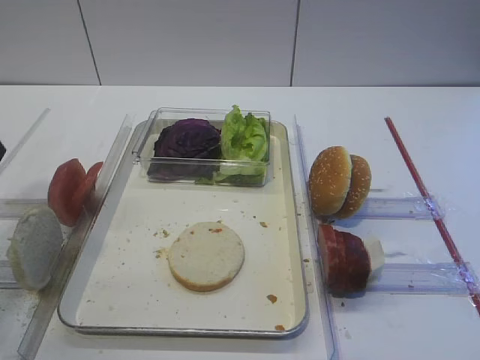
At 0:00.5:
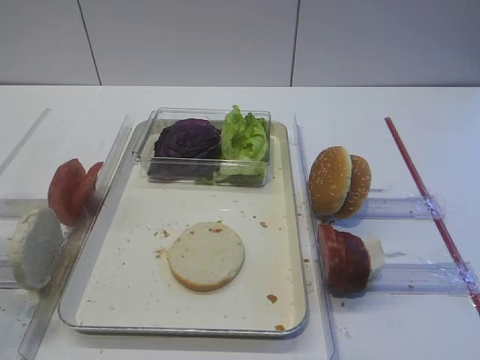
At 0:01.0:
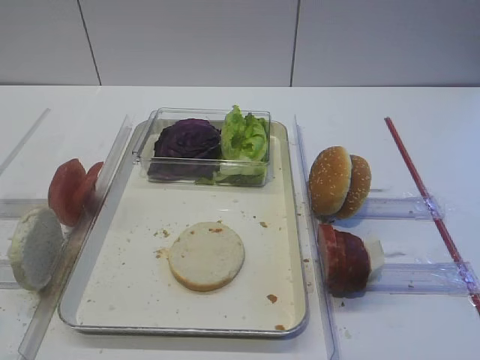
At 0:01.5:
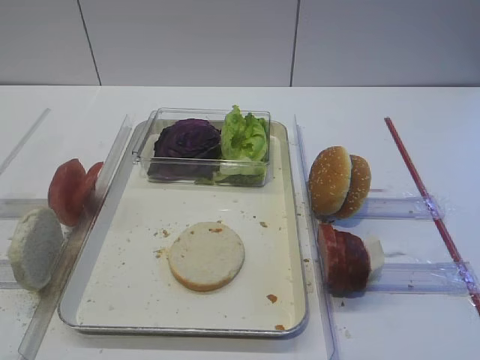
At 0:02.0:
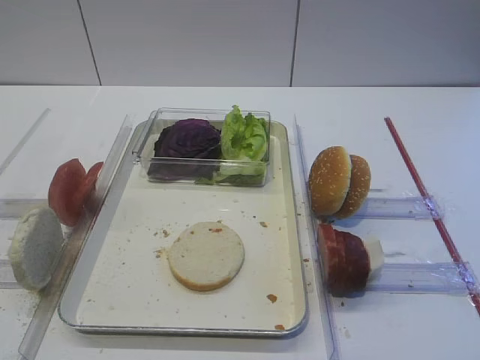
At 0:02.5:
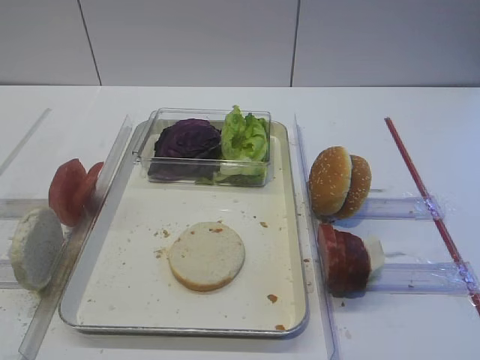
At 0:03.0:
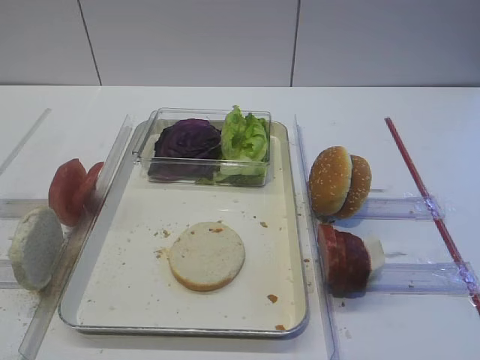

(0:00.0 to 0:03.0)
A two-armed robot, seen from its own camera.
0:00.0 - 0:01.5: The left gripper travels backward by approximately 20 cm.
0:01.5 - 0:03.0: Both grippers stay about where they are.

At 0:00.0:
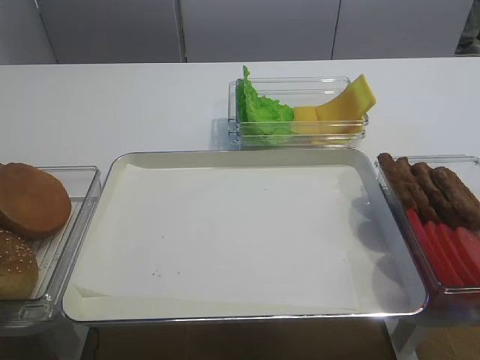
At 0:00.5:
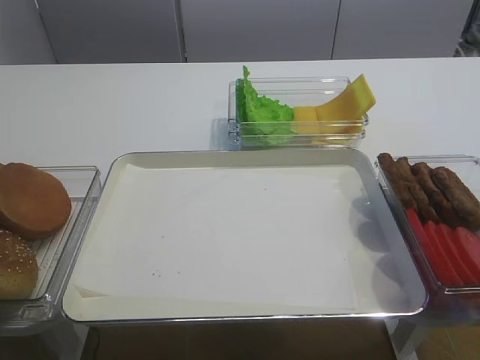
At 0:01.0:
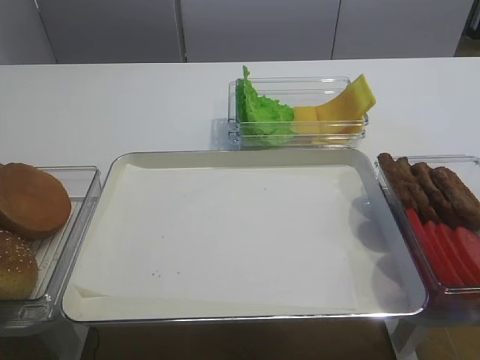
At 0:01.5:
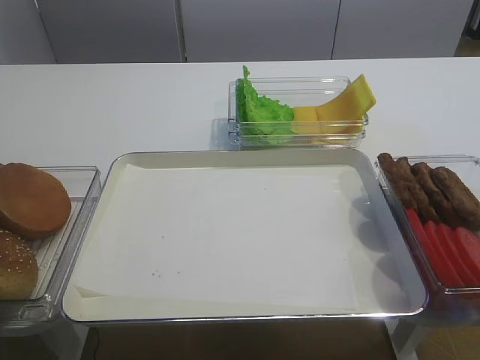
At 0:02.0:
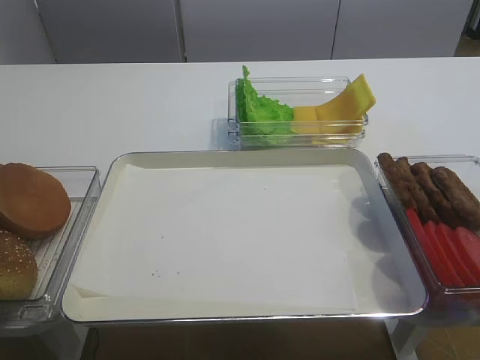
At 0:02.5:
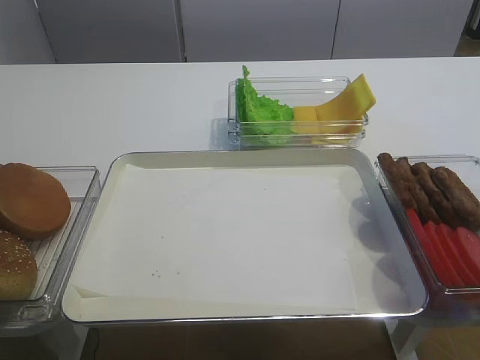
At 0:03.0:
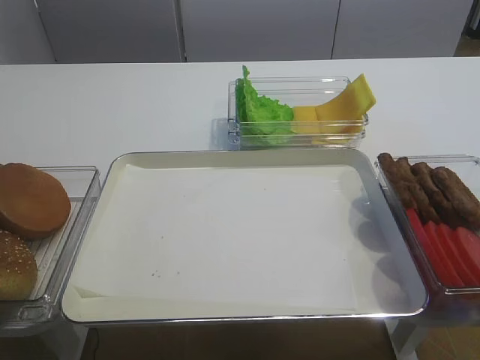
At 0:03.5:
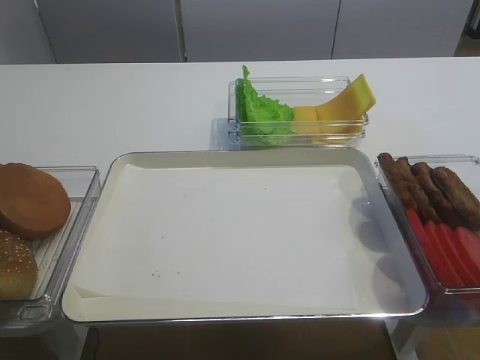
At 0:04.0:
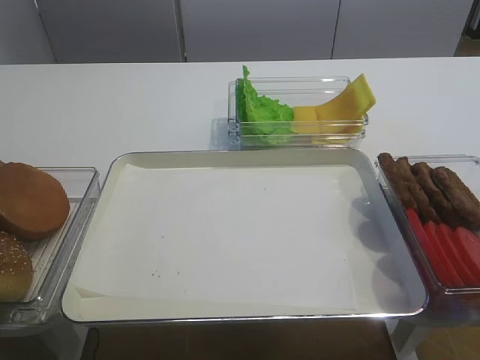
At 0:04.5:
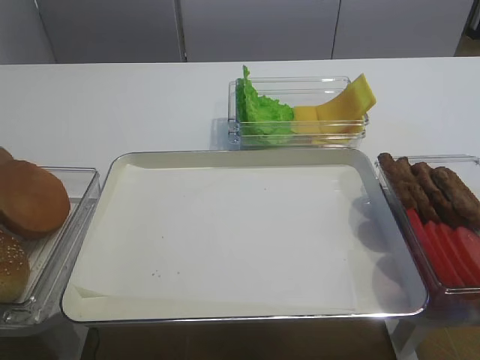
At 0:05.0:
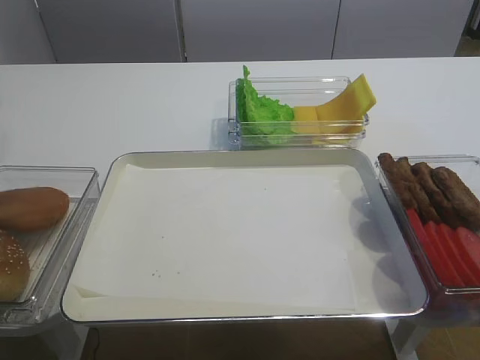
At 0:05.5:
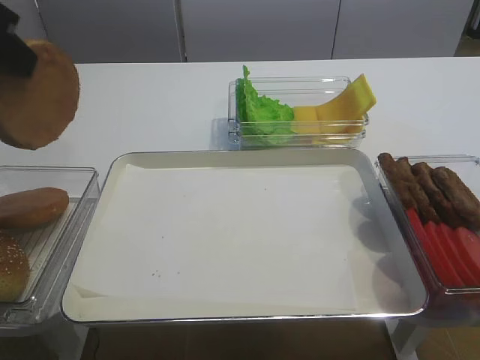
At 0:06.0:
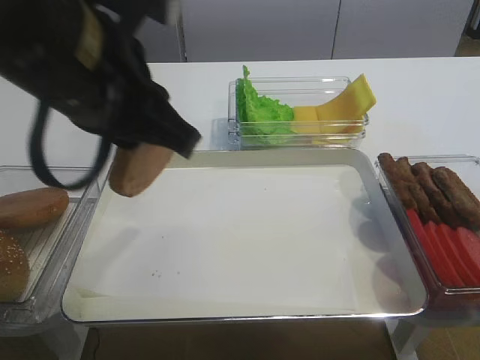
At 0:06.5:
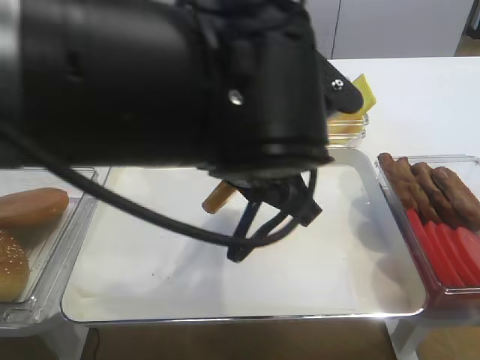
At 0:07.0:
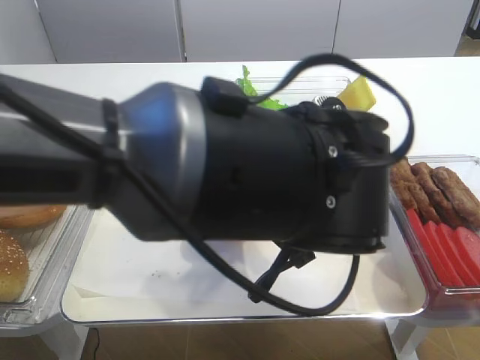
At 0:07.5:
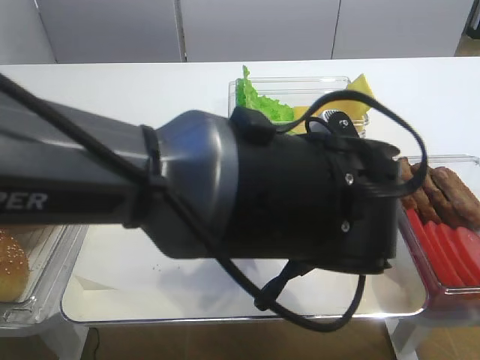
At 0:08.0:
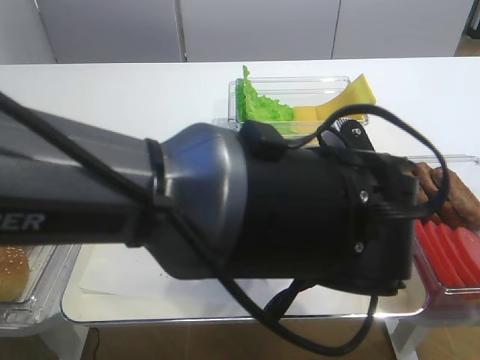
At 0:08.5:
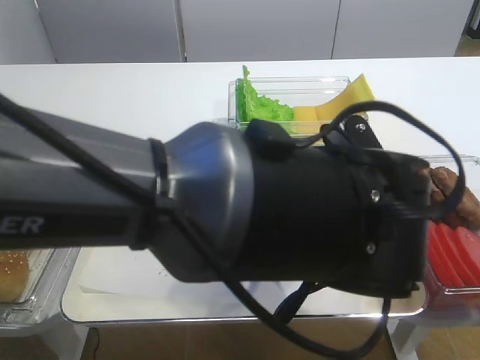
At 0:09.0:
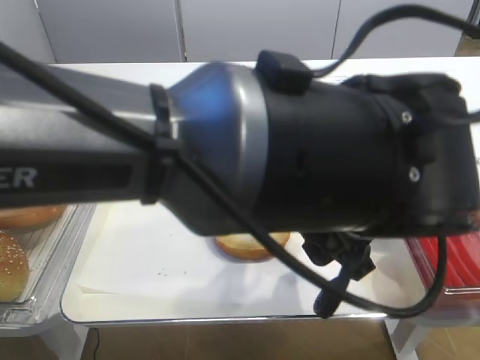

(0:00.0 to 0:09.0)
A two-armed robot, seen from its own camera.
Step, 0:05.0 - 0:08.5: Place the bread slice on the tray with the left gripper.
0:02.0 - 0:04.5: The left gripper shifts some 15 cm forward, downward and to the left, and closes.
0:04.5 - 0:07.0: The left gripper goes roughly 35 cm to the right.
0:07.0 - 0:09.0: The left gripper opens up.

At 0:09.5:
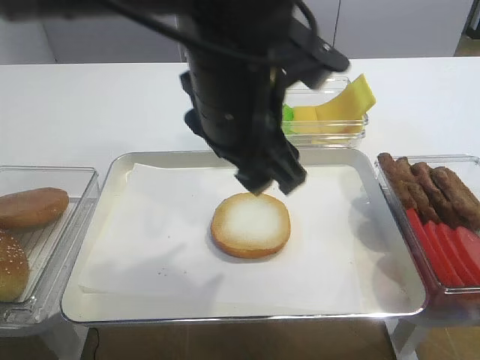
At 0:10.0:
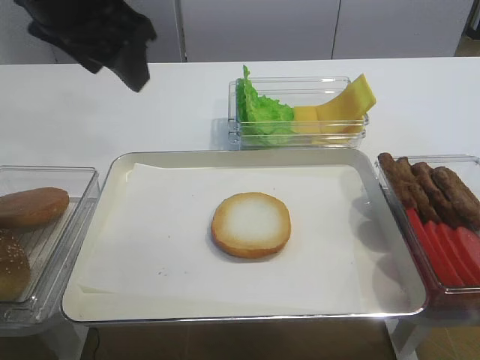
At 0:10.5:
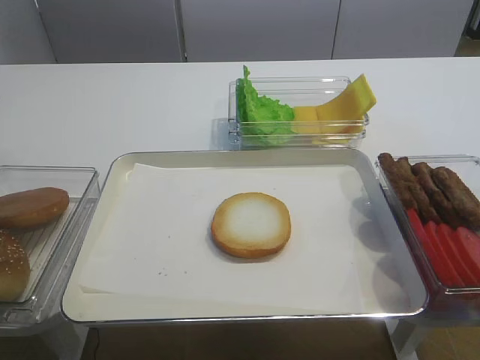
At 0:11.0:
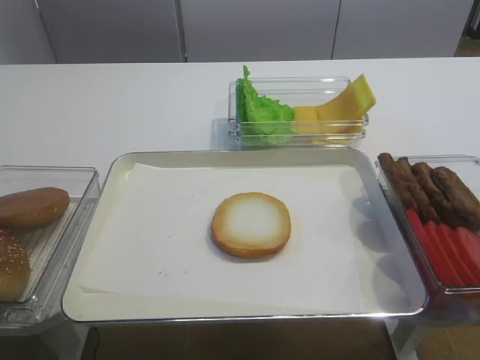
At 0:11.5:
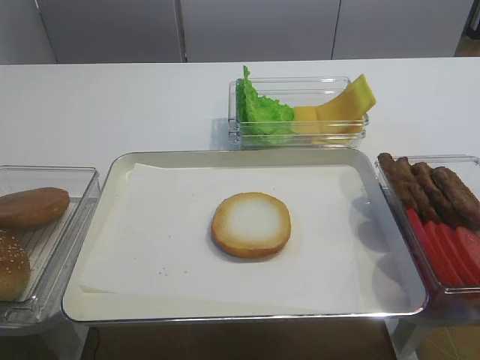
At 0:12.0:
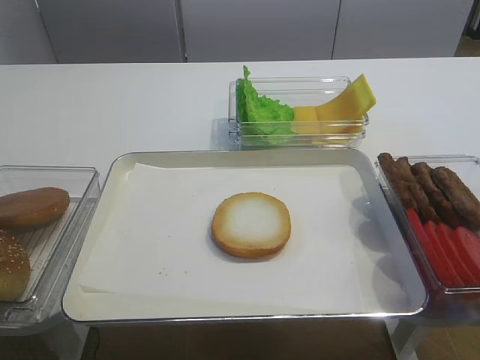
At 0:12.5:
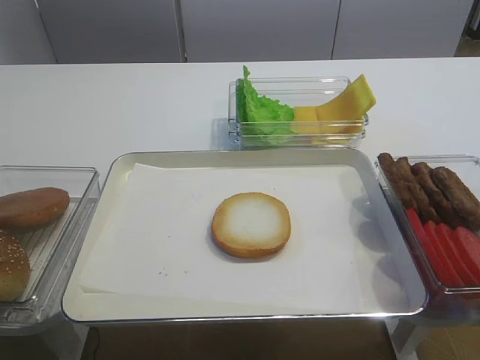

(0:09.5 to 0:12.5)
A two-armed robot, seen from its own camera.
0:09.5 - 0:11.0: The left gripper moves to the left and backward, approximately 30 cm.

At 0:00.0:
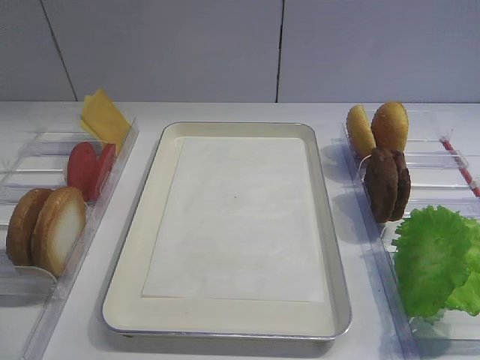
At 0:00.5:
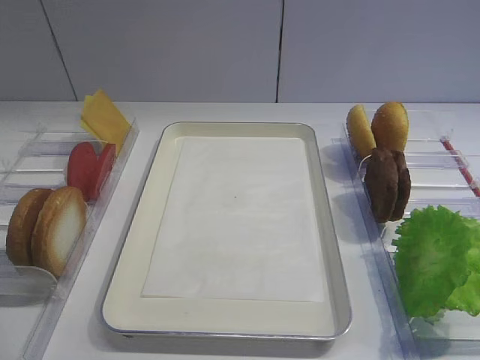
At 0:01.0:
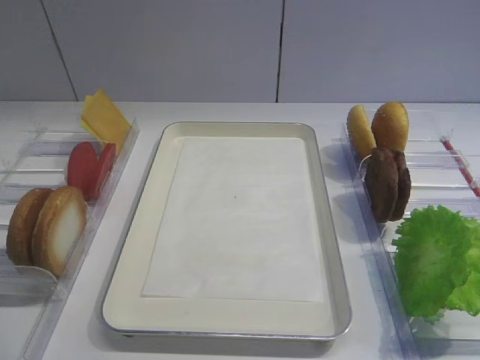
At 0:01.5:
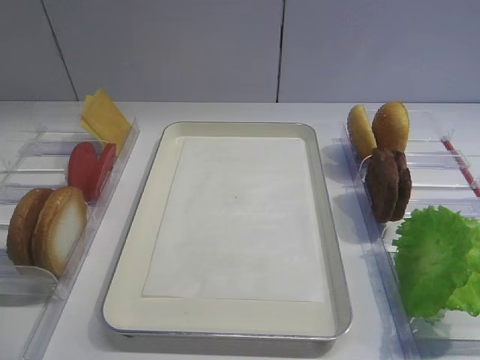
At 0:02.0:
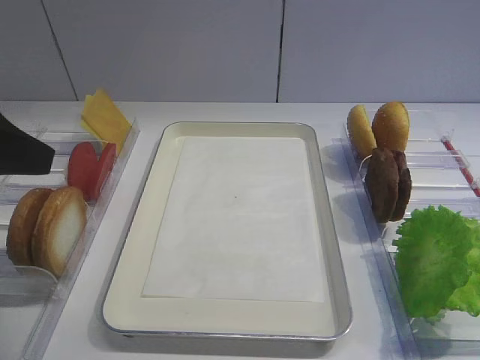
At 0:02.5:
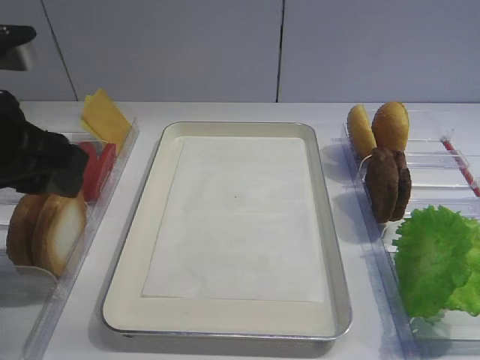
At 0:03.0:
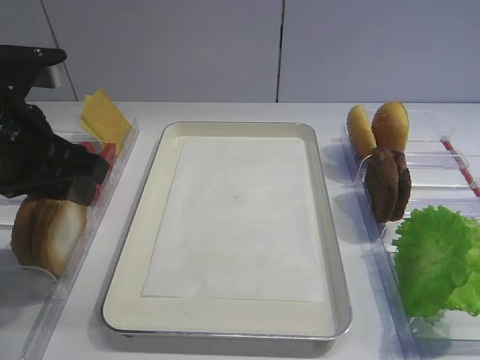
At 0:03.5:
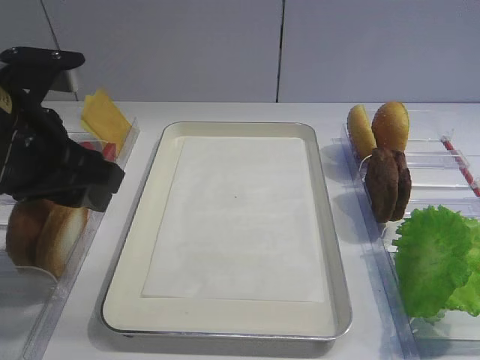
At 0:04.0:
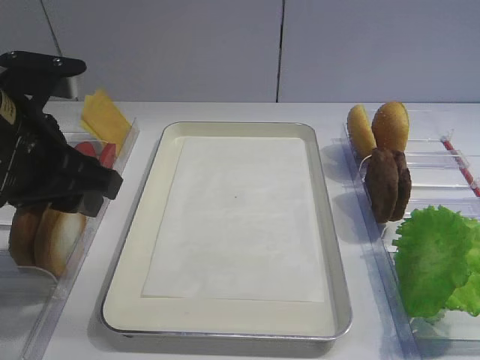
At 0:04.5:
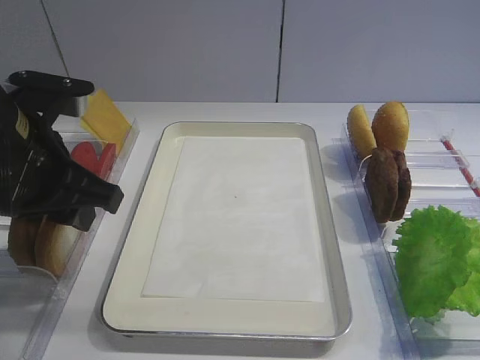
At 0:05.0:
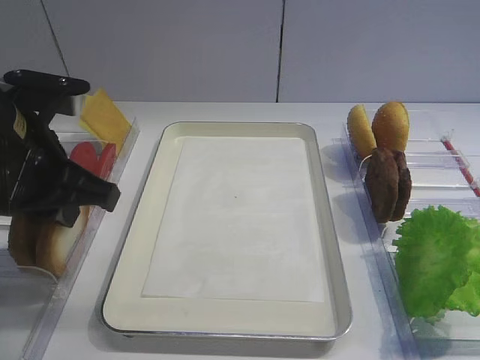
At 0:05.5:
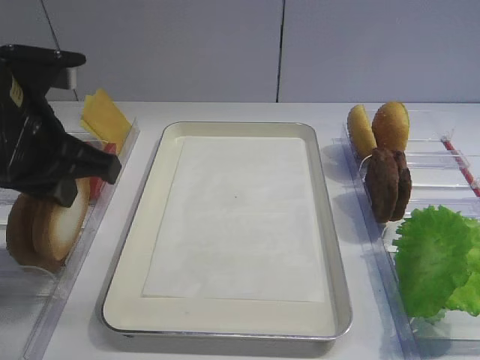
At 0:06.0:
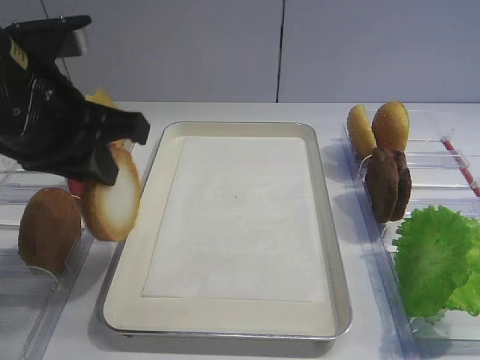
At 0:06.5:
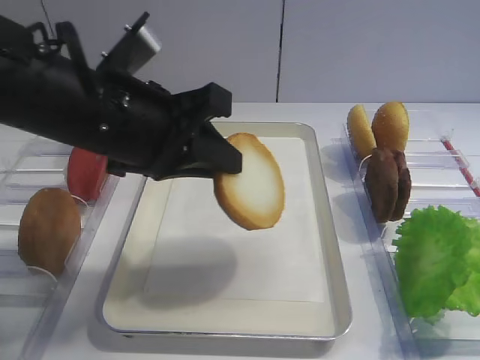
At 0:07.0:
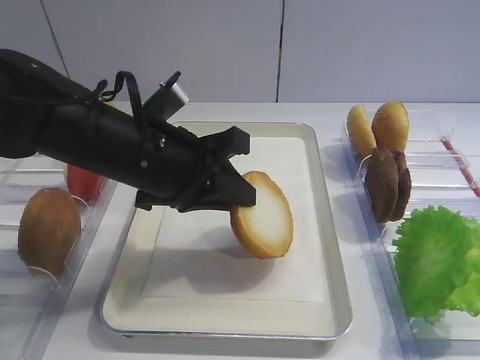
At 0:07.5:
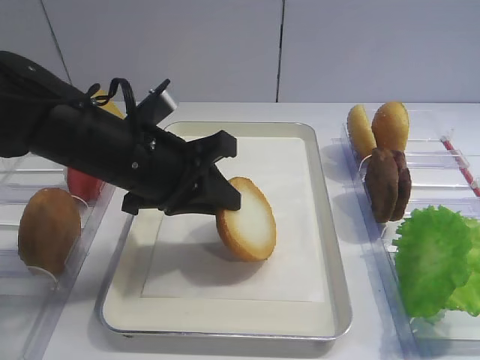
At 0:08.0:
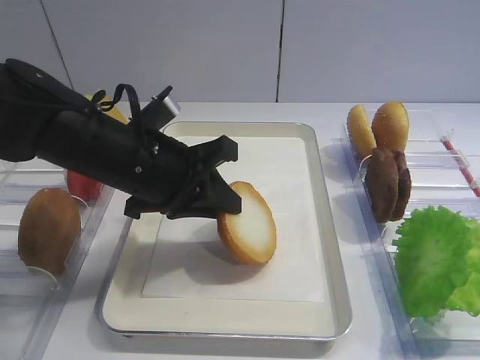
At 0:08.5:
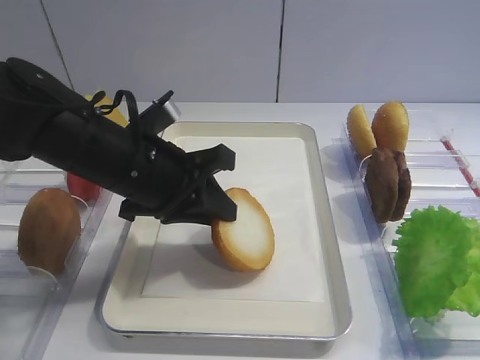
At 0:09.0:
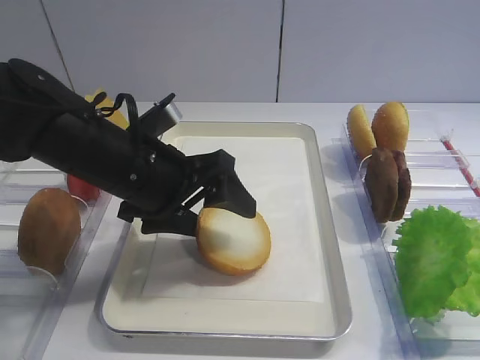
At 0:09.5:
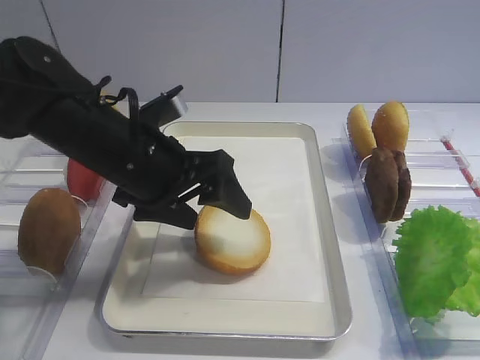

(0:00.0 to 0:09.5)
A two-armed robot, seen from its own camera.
Step, 0:00.0 - 0:05.5: Pick up the bread slice with the left gripper.
0:02.0 - 0:04.0: The left gripper heads forward and to the right, covering about 10 cm.
0:04.0 - 0:05.5: The left gripper closes its fingers.
0:05.5 - 0:07.5: The left gripper travels to the right and downward by about 10 cm.
0:07.5 - 0:09.5: The left gripper opens up.

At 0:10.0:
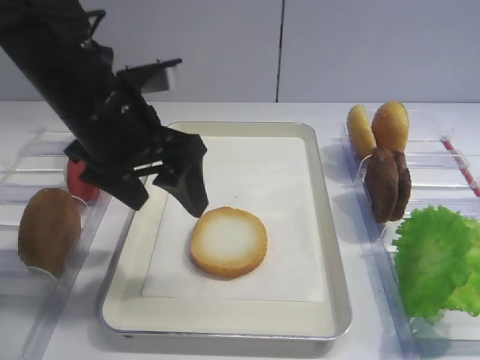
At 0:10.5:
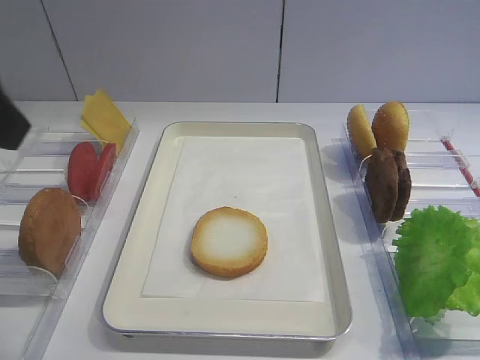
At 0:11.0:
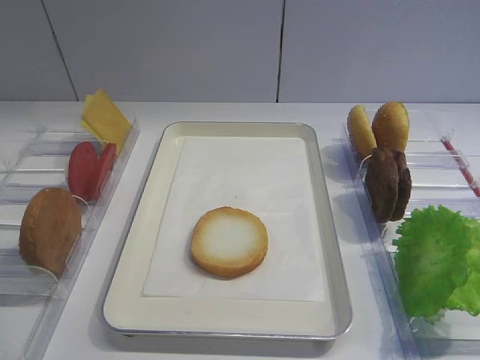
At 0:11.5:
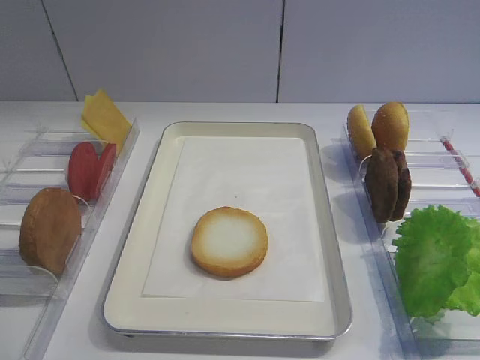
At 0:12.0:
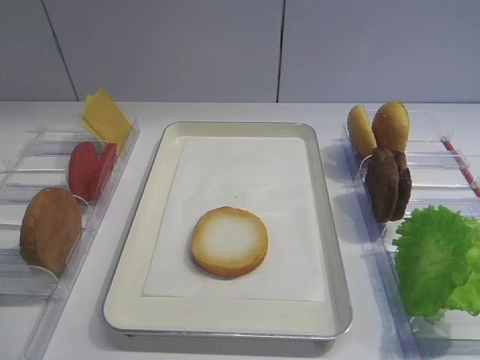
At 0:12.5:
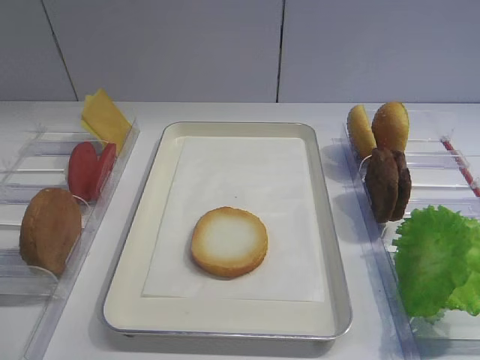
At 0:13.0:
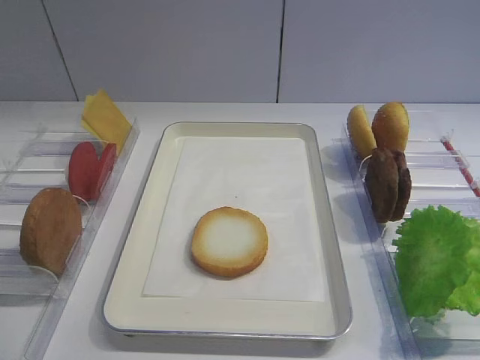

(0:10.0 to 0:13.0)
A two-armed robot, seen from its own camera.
0:10.0 - 0:11.5: The left gripper goes approximately 35 cm backward and to the left.
